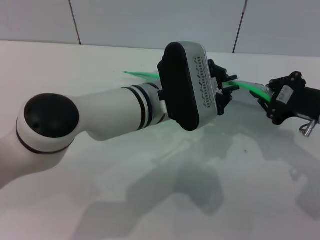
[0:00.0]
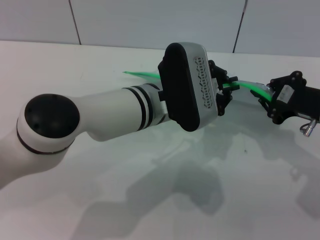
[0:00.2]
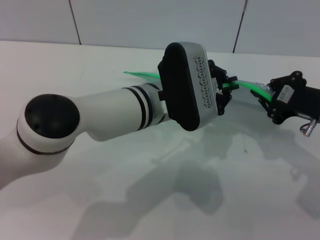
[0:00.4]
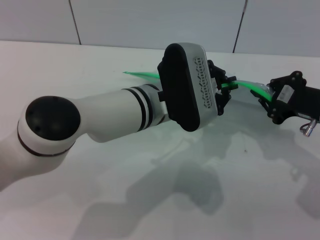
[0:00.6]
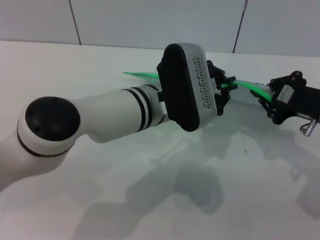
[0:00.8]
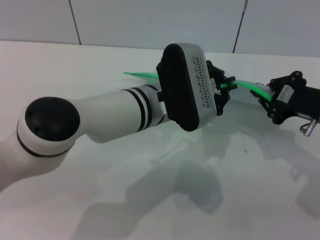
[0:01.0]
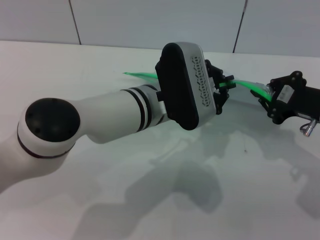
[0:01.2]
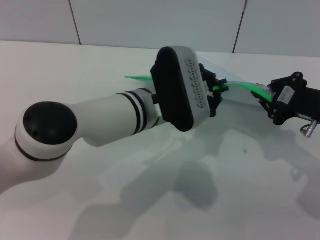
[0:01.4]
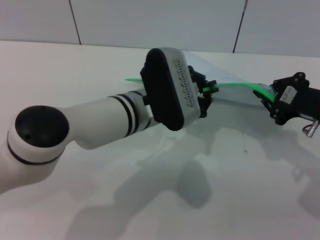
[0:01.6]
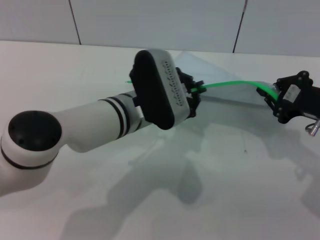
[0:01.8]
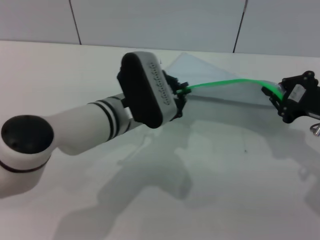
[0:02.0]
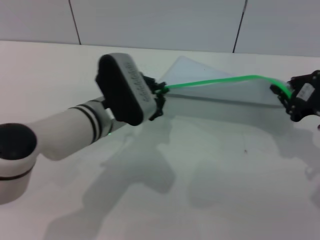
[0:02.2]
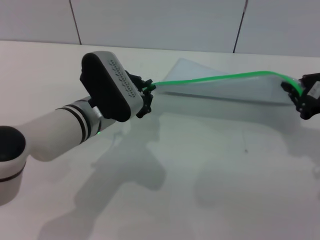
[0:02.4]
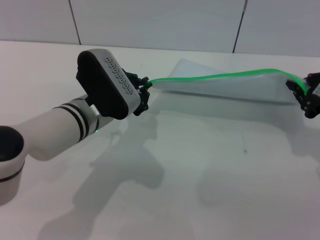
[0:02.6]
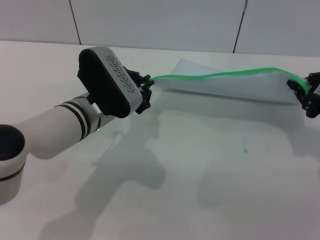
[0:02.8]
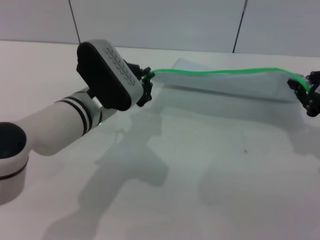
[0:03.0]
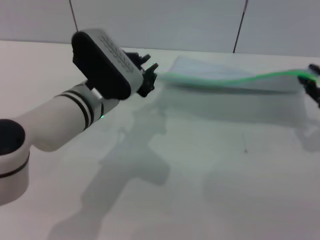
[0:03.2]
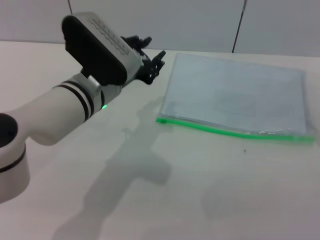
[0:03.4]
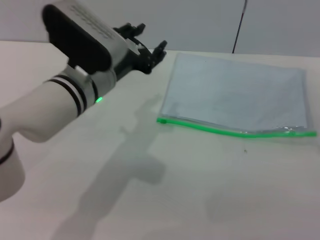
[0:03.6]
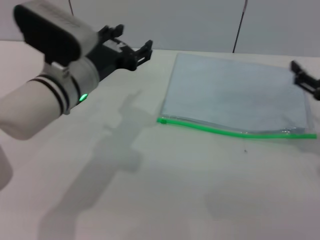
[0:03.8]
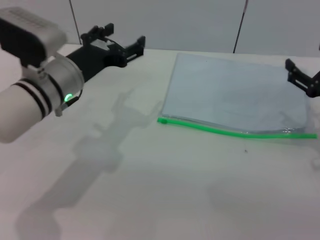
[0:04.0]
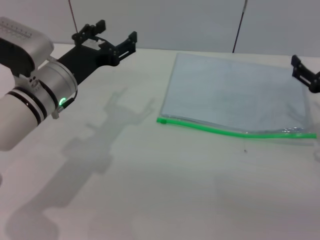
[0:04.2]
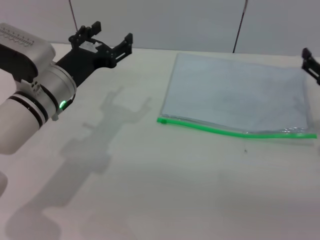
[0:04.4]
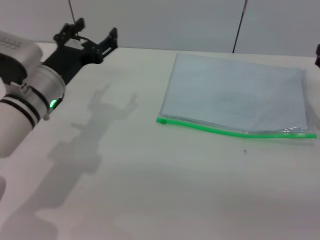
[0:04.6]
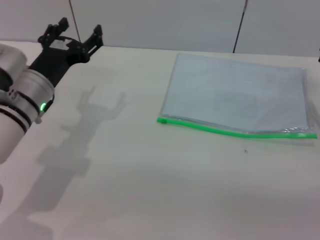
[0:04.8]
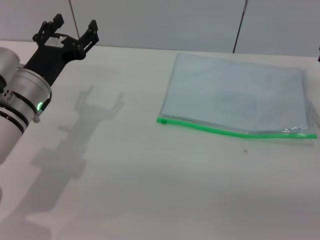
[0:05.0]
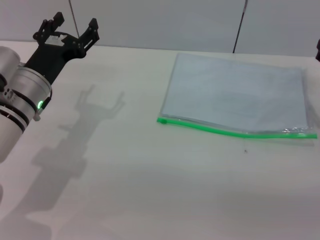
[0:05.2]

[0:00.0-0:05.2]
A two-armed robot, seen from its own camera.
Step, 0:00.0 to 0:03.0: Pulling up the zipper on the transparent plastic bag with the left gripper to close it.
Step, 0:03.2 to 0:04.0: Place the transparent plastic bag.
0:00.0 to 0:01.8: The grippers stay close to where they were, moving slightly.
0:01.8 to 0:03.4: The right gripper shifts approximately 5 cm to the right, while the left gripper changes place by roughly 5 cm.
0:03.4 to 0:05.2: The left gripper travels to the left by approximately 10 cm, and opens up. Meanwhile the right gripper moves downward, approximately 10 cm, and opens.

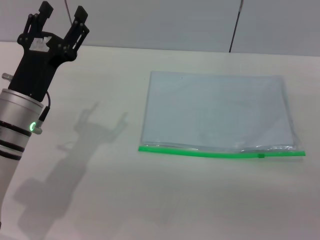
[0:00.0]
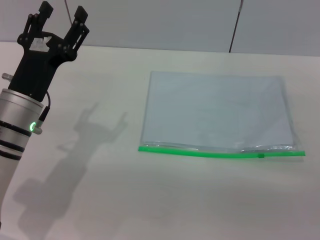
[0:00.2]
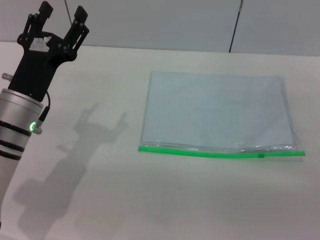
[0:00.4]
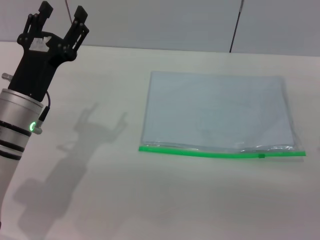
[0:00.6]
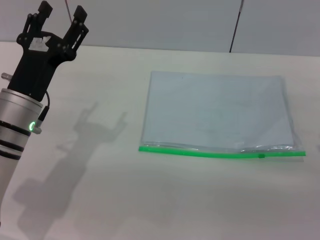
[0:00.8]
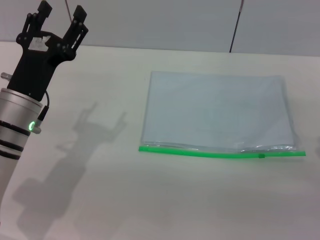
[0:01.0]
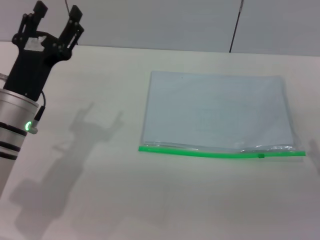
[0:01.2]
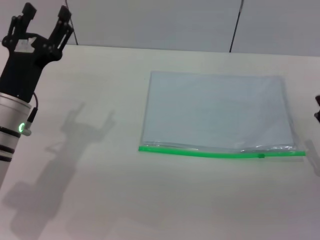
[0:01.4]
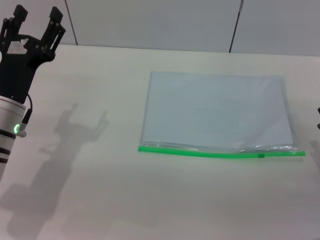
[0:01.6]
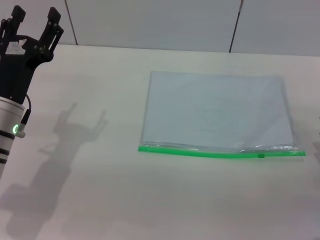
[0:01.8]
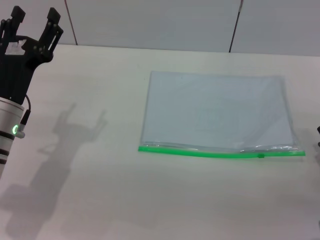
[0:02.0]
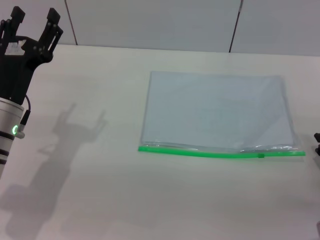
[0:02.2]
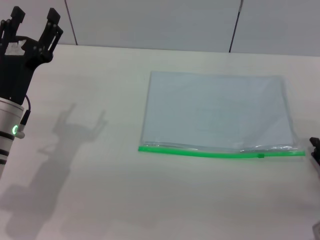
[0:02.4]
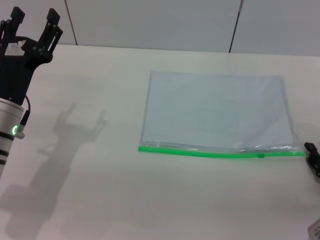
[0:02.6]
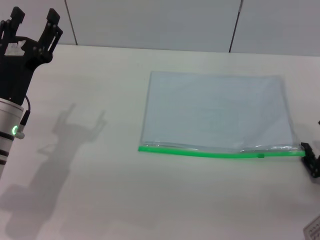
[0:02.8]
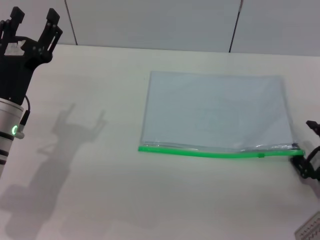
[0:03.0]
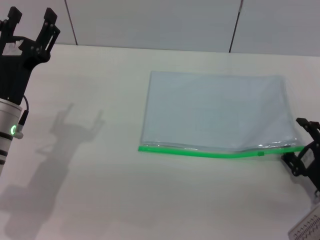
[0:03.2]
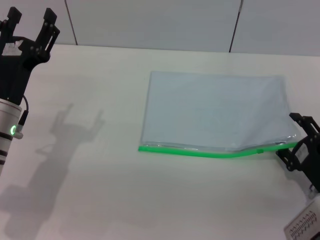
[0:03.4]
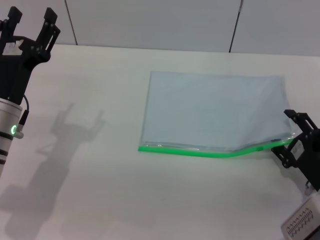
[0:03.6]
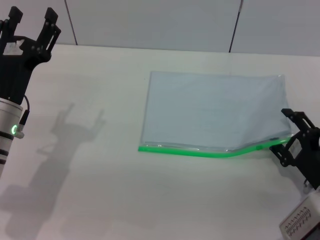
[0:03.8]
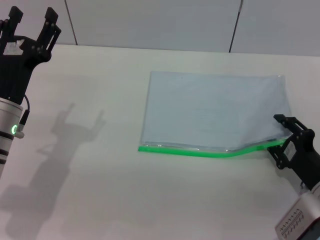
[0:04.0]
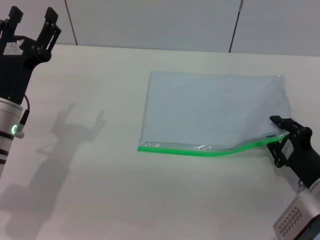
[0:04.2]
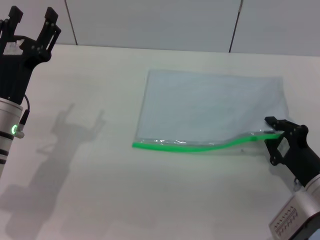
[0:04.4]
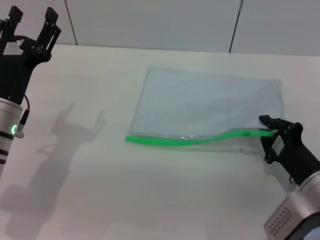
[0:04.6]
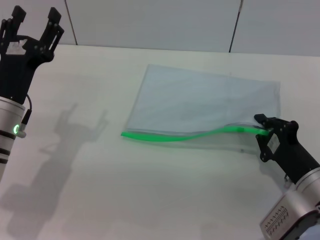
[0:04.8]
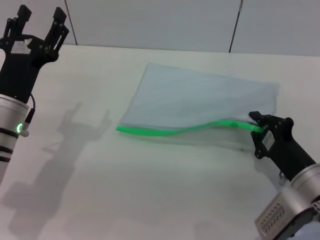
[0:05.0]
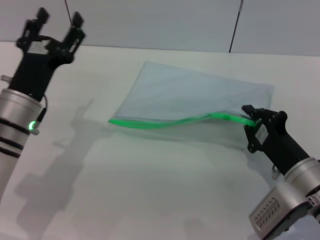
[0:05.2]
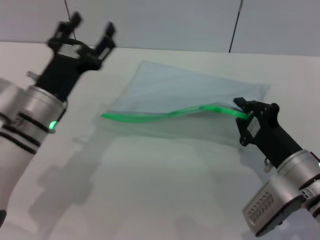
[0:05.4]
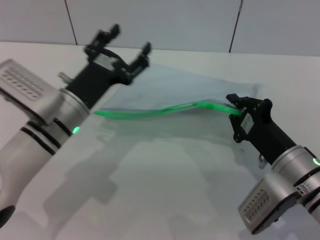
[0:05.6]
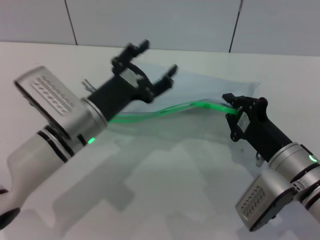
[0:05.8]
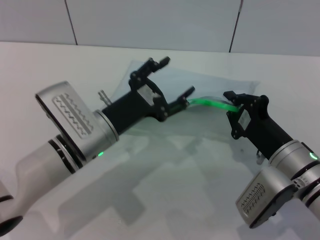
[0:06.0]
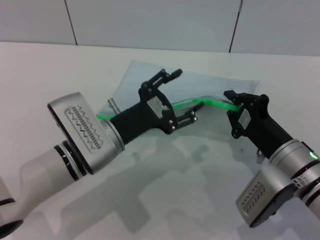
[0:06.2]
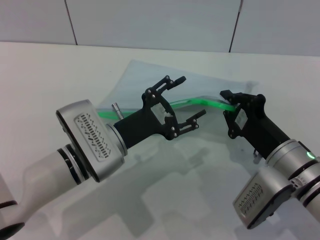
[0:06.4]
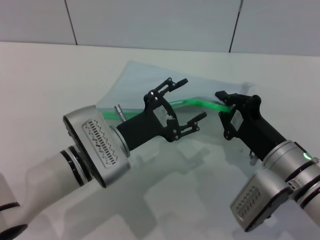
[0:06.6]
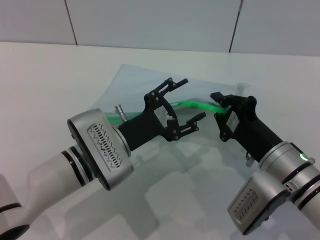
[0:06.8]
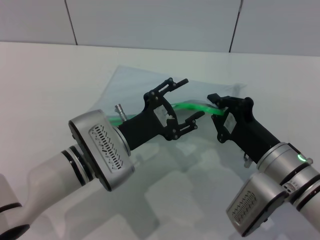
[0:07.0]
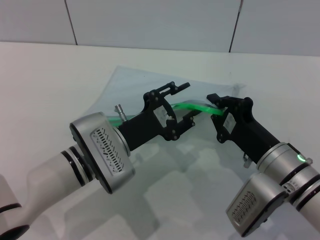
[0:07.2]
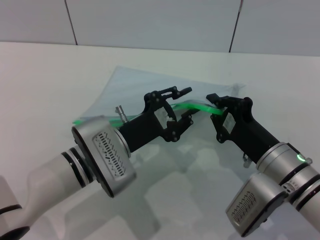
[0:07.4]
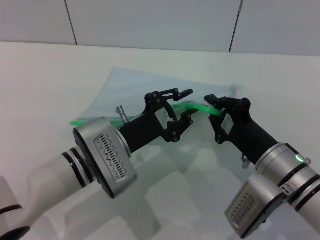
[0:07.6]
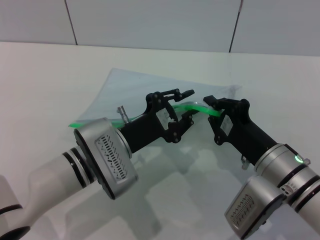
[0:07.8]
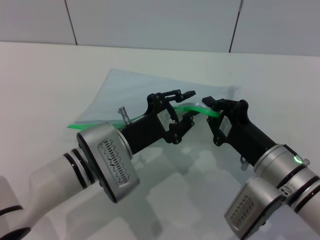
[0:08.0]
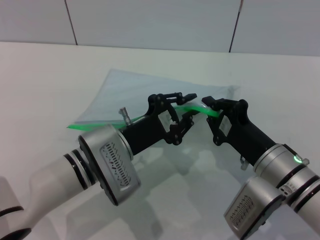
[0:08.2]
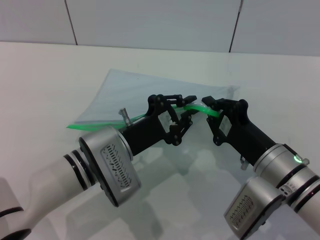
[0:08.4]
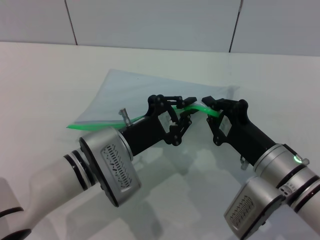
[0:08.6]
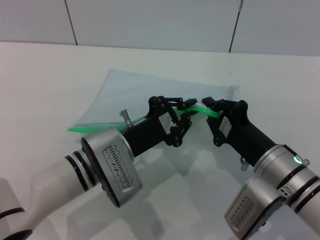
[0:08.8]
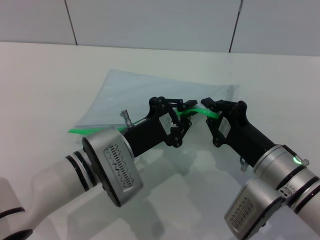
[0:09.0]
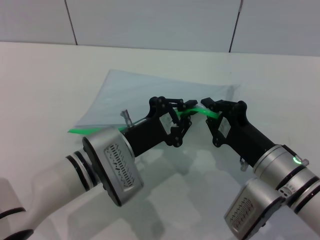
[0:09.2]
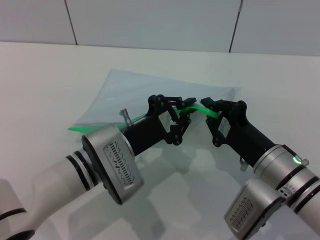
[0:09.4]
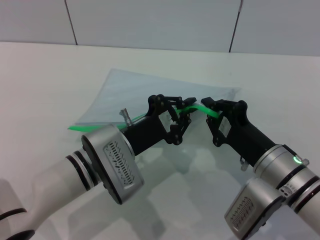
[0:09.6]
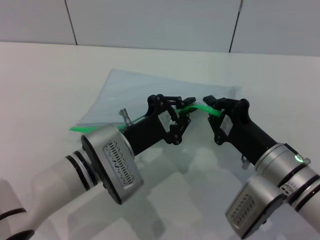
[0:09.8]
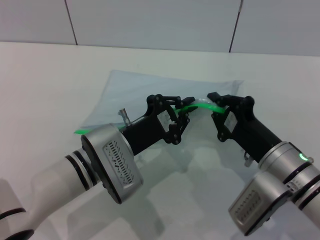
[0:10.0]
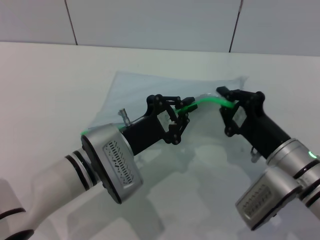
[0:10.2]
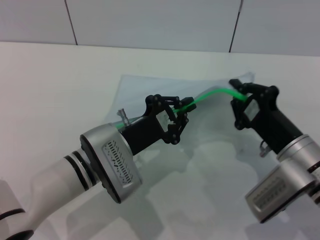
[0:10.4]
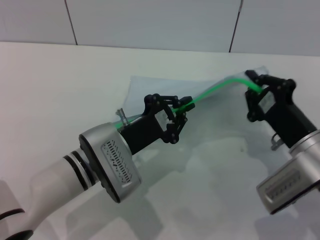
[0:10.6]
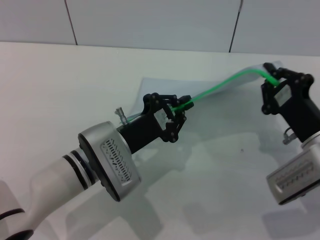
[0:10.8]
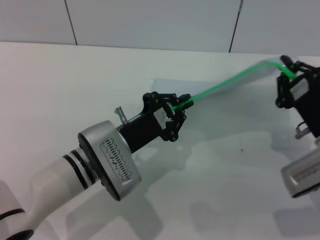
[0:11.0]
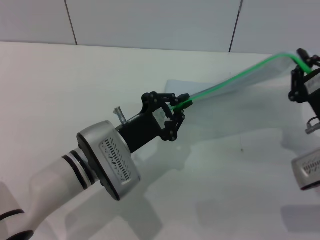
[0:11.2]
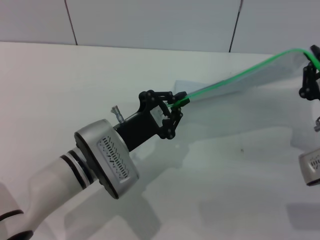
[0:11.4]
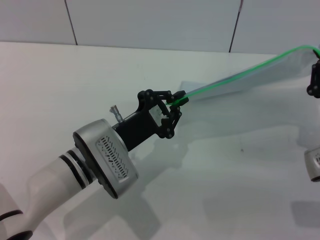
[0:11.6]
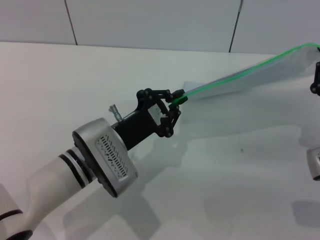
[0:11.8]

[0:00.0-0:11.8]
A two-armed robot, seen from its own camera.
Step, 0:00.0 to 0:05.8: Pick up the transparent plastic bag with the right gripper.
0:03.0 to 0:04.4: The right gripper closes its fingers.
0:04.4 to 0:06.0: The left gripper moves to the right, some 10 cm. Meanwhile the right gripper is displaced to the left by roughly 5 cm, and closes.
0:07.4 to 0:08.8: The left gripper closes its fingers.
0:08.8 to 0:10.4: The grippers stay close to where they were, moving slightly.
0:10.4 to 0:11.8: The right gripper moves to the right, about 10 cm.

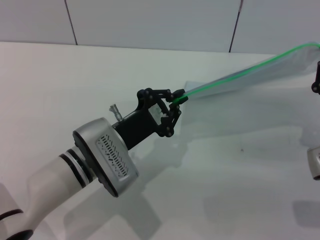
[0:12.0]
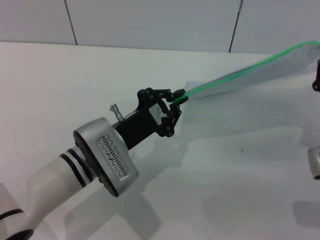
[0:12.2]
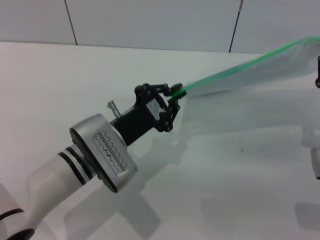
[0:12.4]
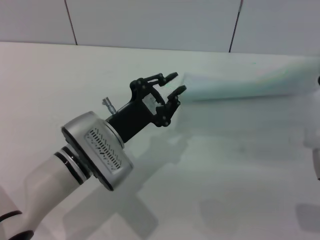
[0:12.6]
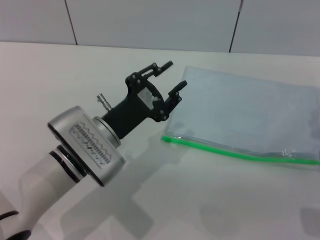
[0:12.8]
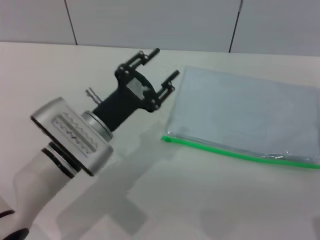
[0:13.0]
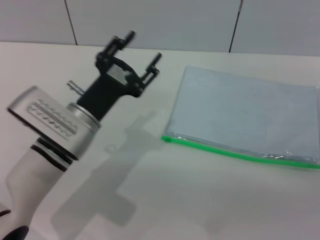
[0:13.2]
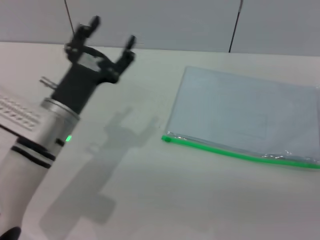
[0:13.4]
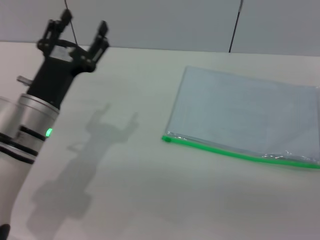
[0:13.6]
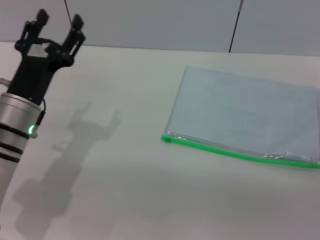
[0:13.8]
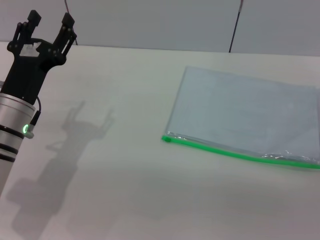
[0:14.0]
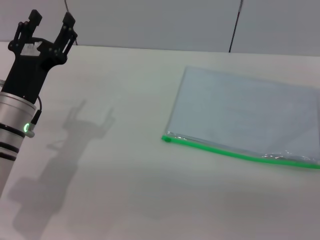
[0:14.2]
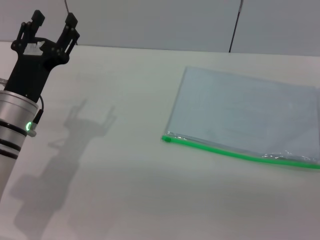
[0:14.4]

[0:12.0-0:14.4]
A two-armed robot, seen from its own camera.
Step, 0:12.6 to 0:13.0: Place the transparent plastic bag.
0:12.0 to 0:13.2: The left gripper opens up. The right gripper opens up.
0:13.2 to 0:14.4: The left gripper heads to the left, covering some 10 cm, and opens.
